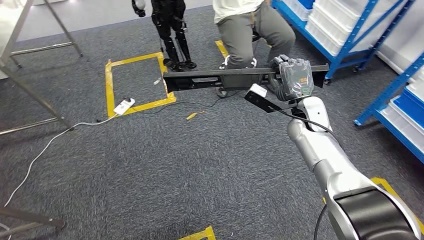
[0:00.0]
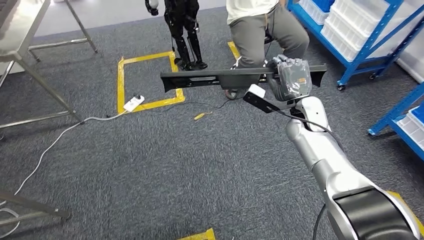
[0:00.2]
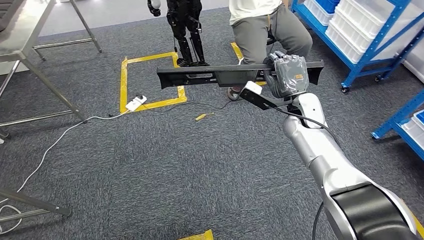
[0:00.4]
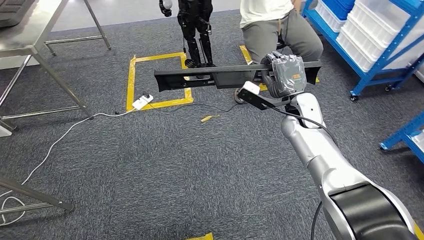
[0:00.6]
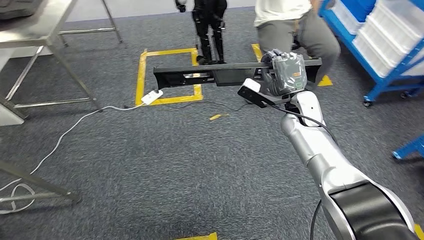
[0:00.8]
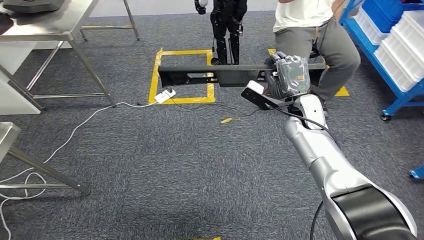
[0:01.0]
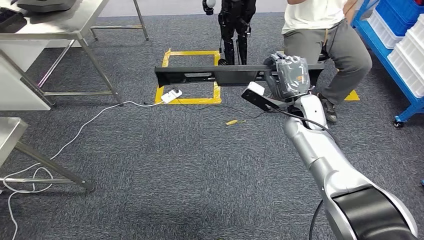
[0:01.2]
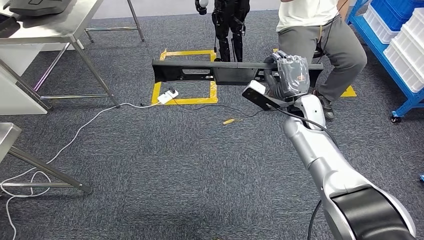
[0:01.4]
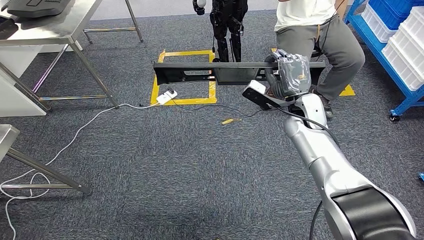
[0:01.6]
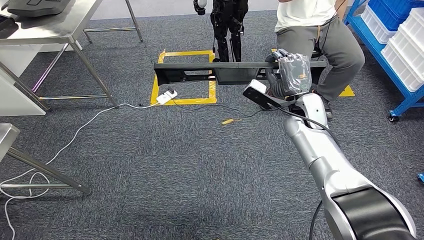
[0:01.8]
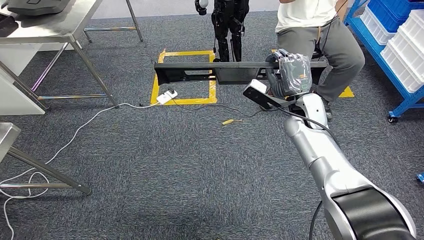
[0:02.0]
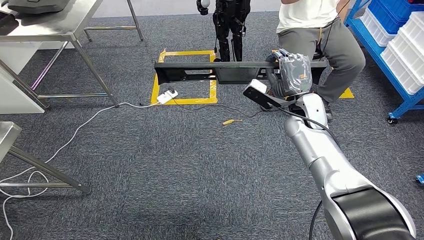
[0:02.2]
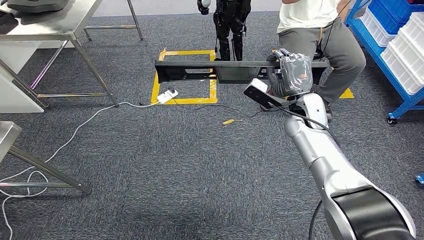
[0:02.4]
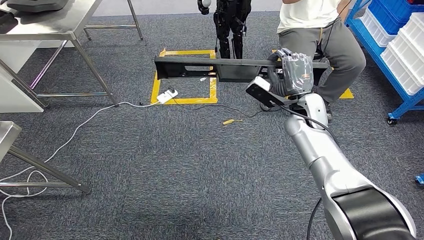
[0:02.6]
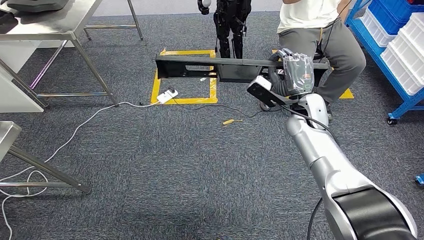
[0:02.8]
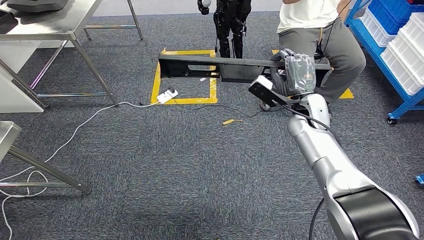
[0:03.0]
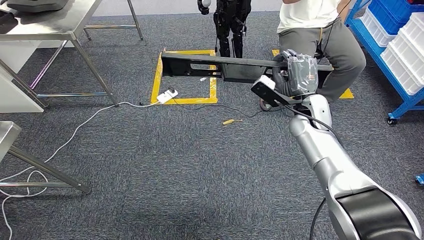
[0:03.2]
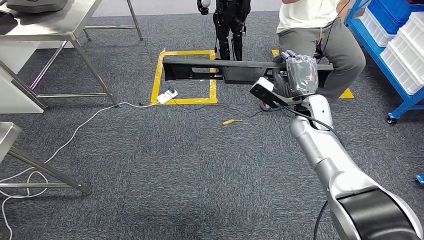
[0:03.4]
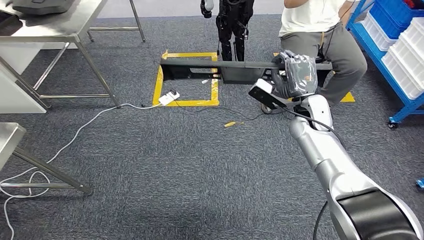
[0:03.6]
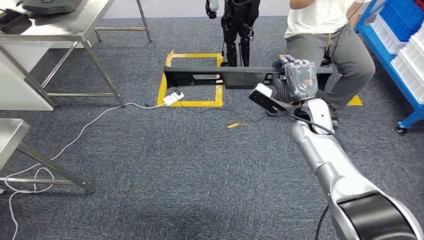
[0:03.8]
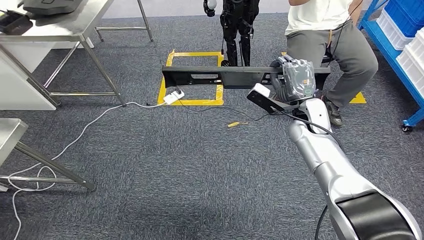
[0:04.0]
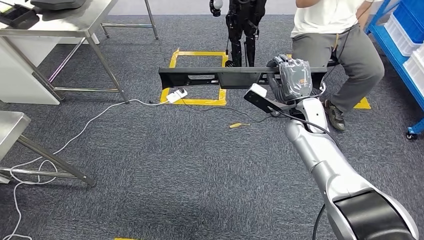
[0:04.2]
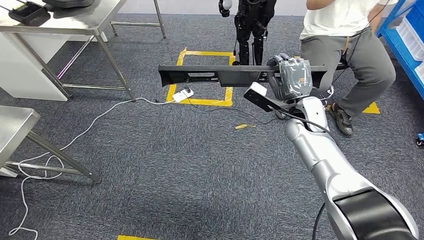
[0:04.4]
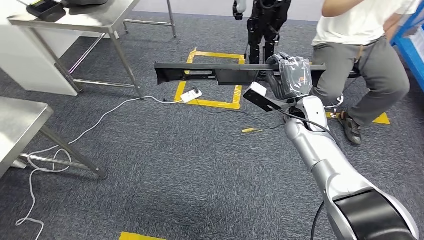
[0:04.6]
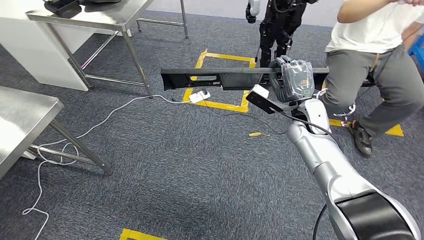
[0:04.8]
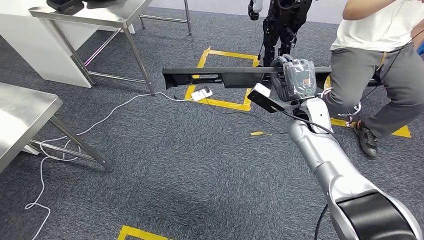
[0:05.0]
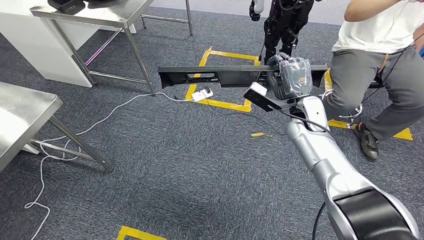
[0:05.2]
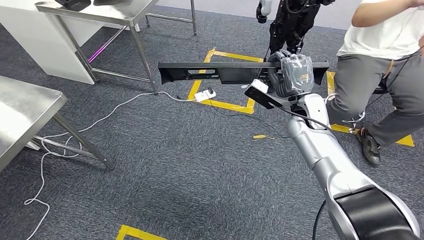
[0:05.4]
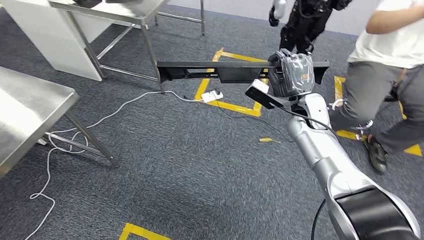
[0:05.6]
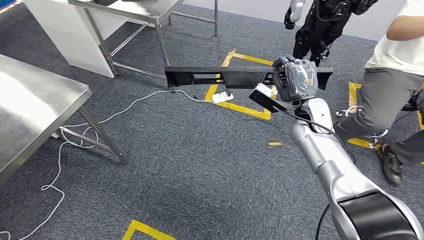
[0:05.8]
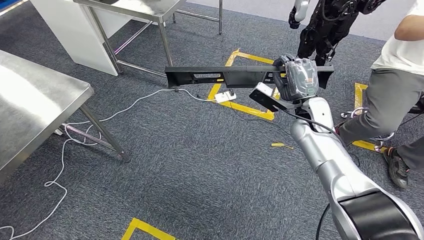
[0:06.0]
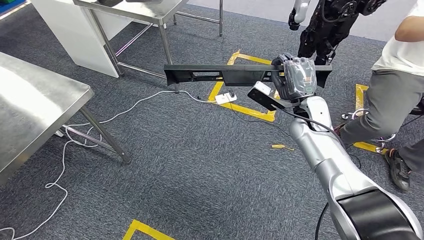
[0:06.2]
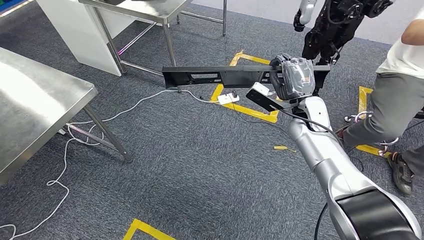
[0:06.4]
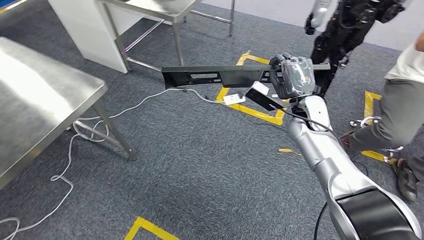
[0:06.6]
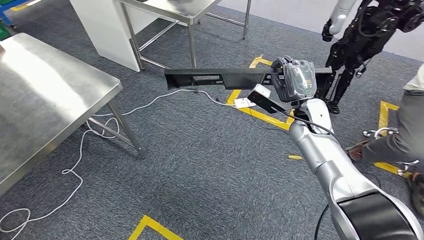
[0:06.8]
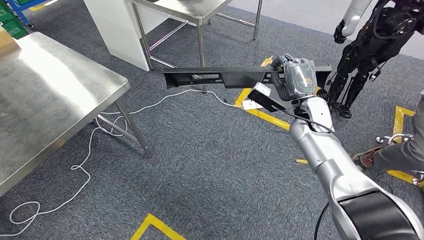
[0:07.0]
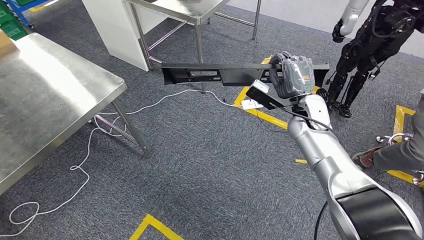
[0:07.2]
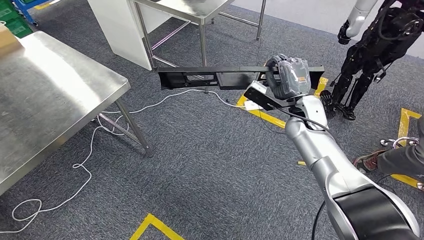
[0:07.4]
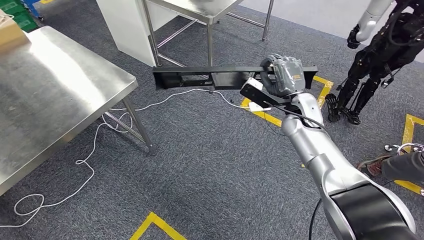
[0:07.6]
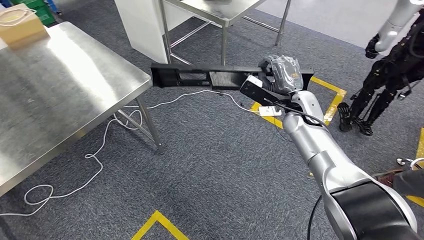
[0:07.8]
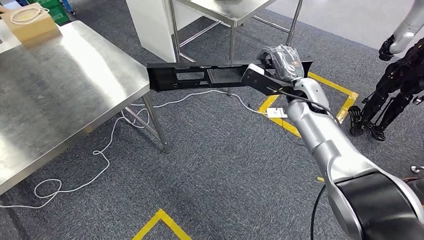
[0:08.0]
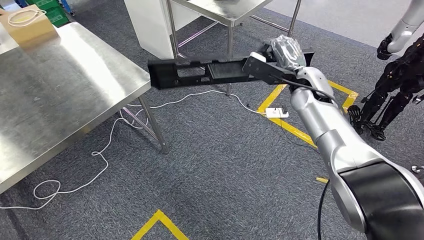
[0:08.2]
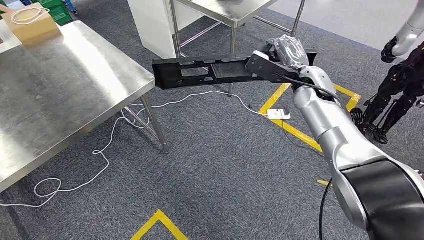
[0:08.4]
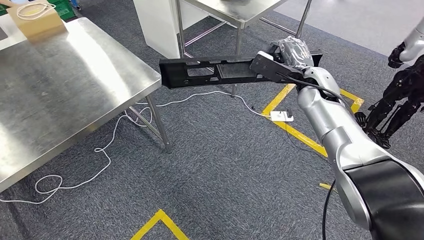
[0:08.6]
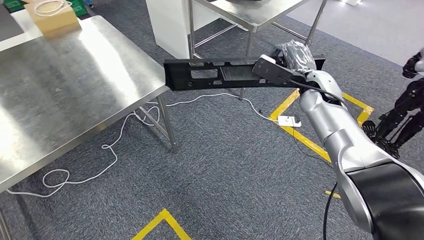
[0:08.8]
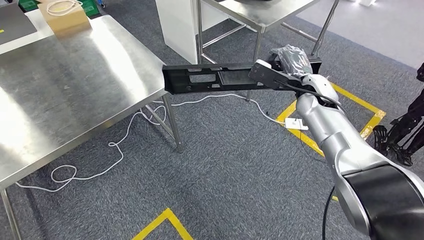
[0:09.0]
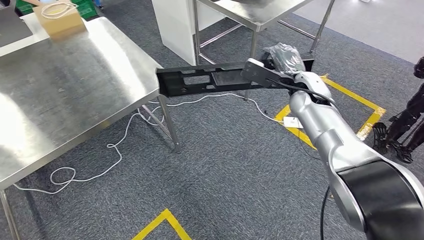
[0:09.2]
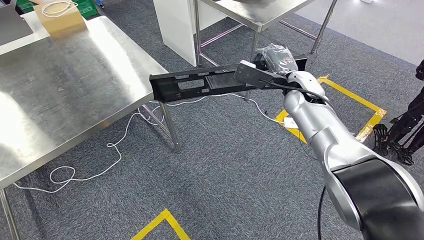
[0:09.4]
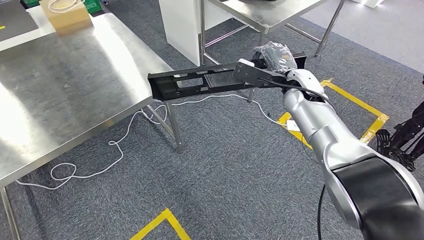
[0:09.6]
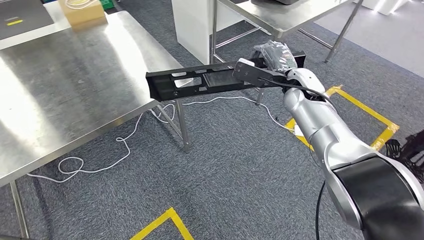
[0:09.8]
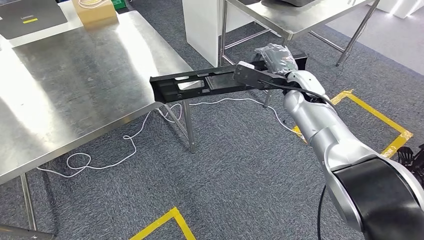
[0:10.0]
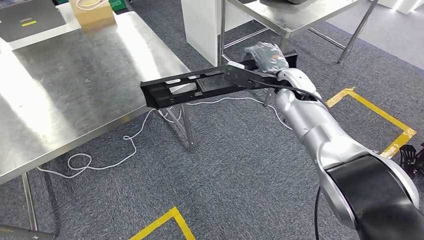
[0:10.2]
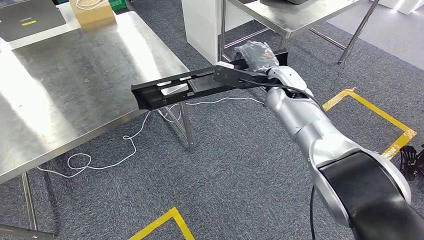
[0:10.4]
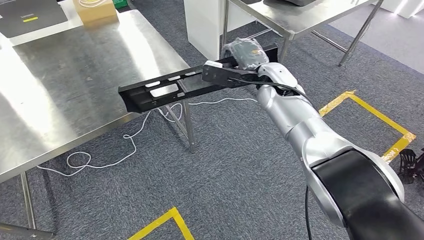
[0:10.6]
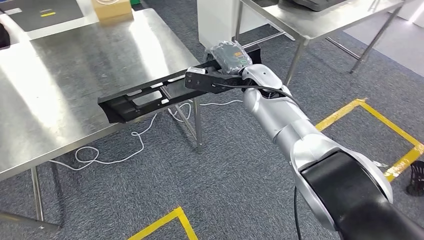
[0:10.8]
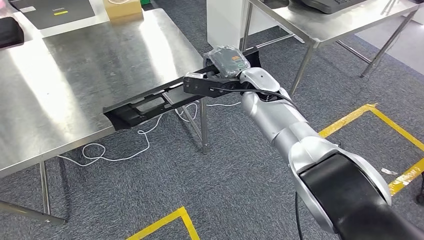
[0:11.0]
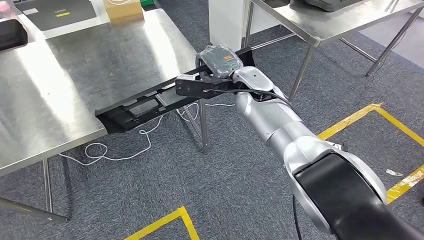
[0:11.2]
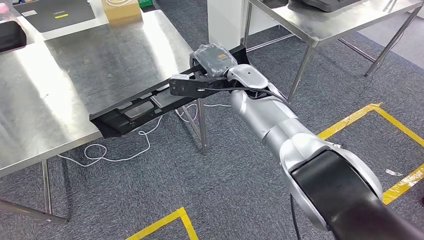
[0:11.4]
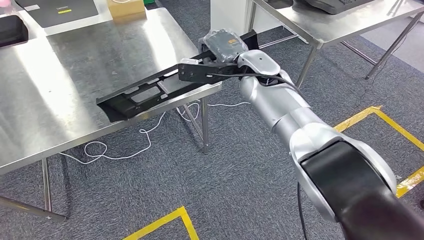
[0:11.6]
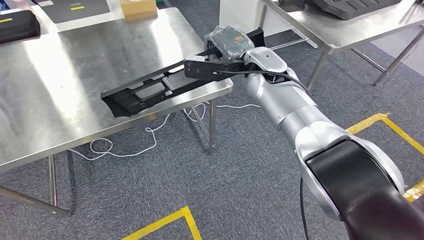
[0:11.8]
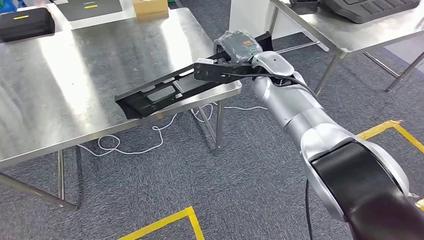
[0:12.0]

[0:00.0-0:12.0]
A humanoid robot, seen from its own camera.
Step, 0:00.0 to 0:10.6: Move the large material to the workbench.
0:01.6 to 0:03.0: The hands move only a little.

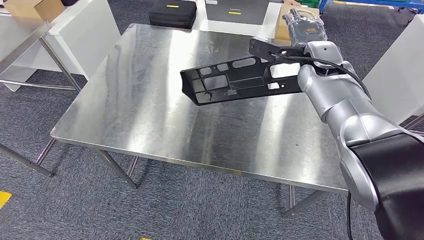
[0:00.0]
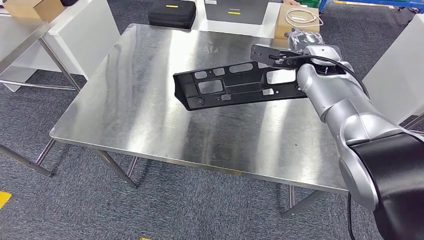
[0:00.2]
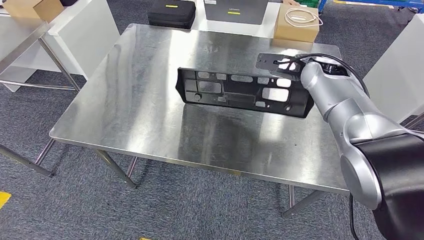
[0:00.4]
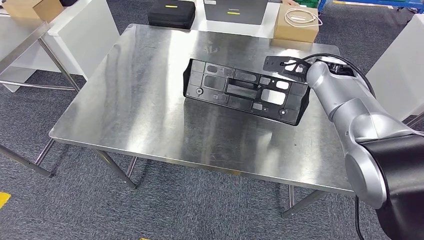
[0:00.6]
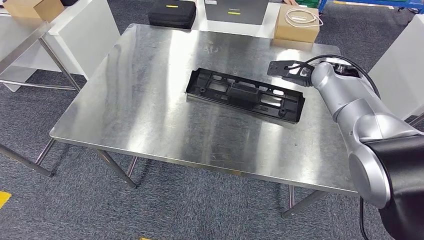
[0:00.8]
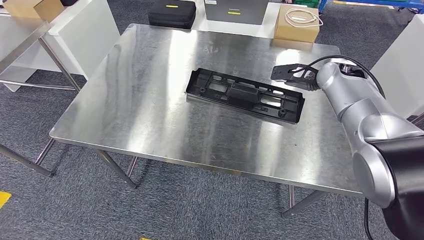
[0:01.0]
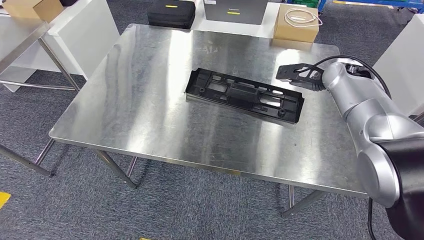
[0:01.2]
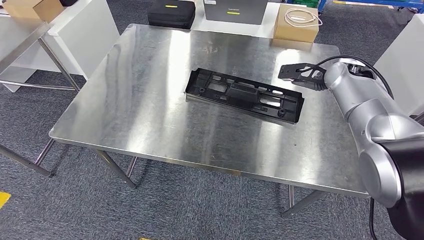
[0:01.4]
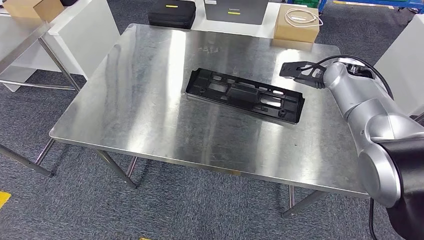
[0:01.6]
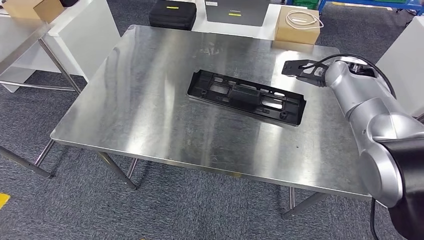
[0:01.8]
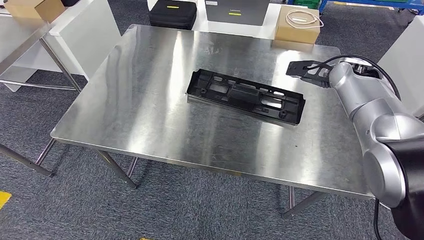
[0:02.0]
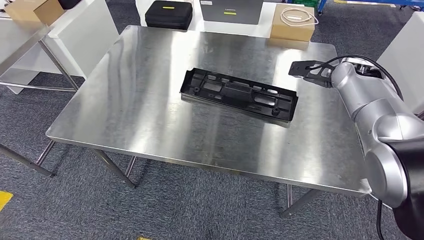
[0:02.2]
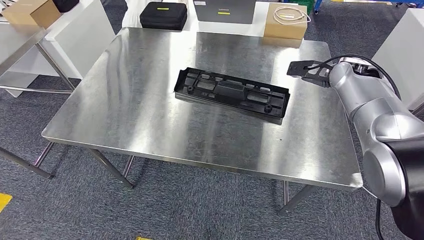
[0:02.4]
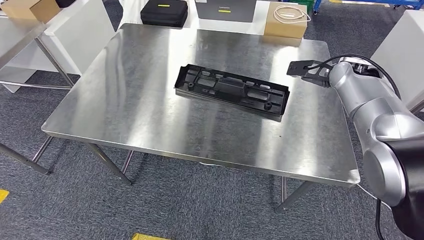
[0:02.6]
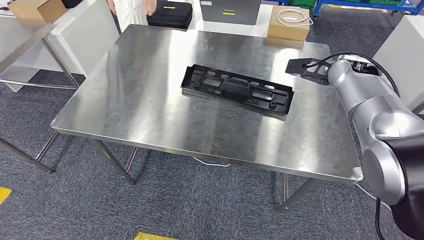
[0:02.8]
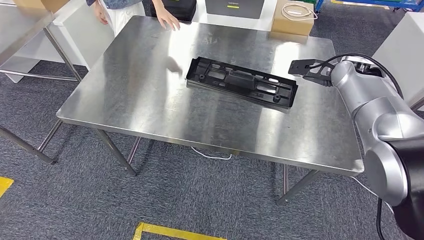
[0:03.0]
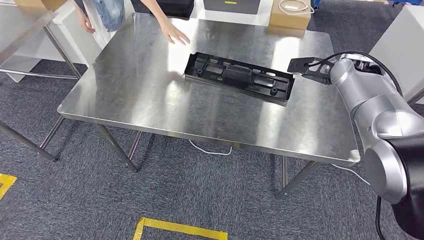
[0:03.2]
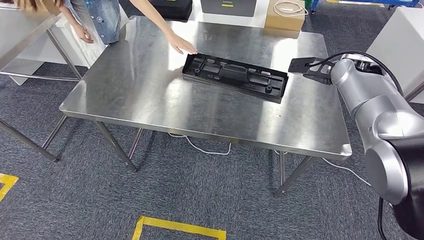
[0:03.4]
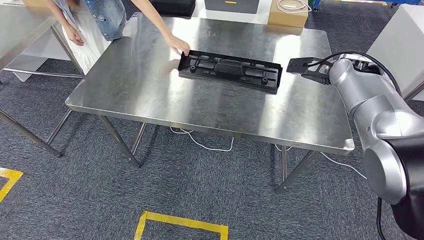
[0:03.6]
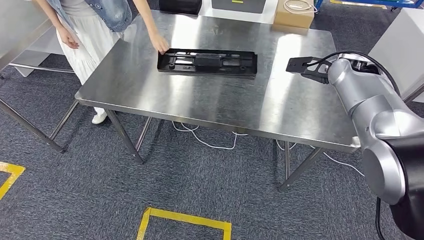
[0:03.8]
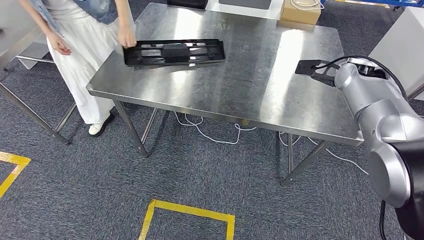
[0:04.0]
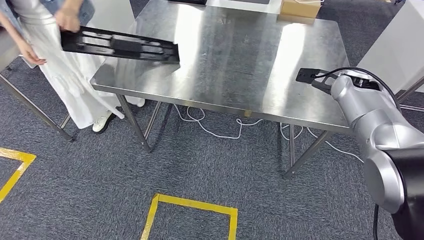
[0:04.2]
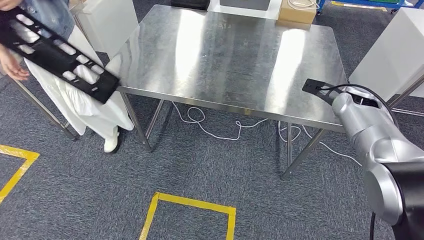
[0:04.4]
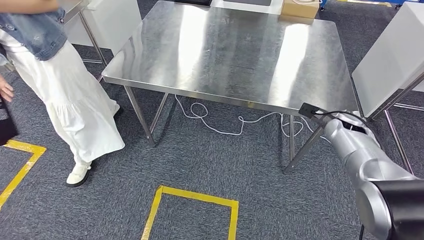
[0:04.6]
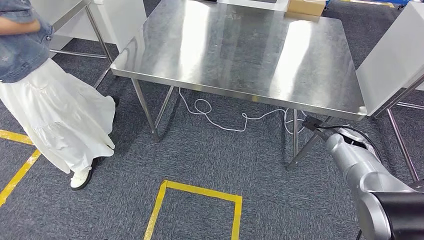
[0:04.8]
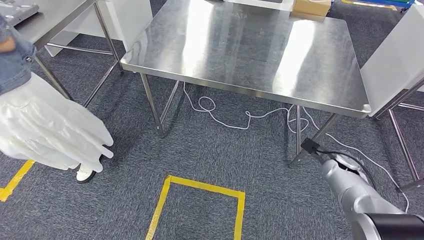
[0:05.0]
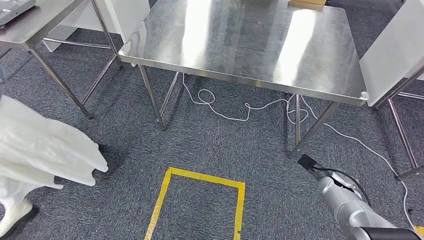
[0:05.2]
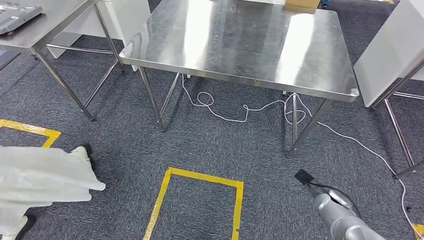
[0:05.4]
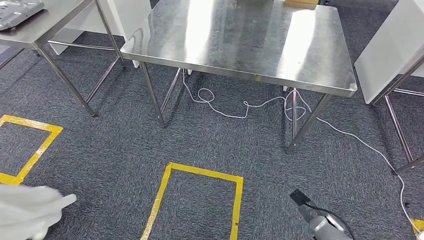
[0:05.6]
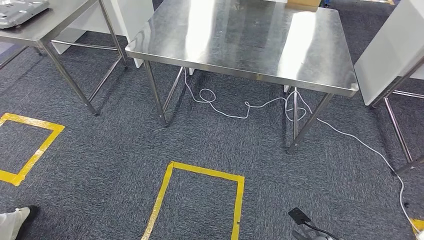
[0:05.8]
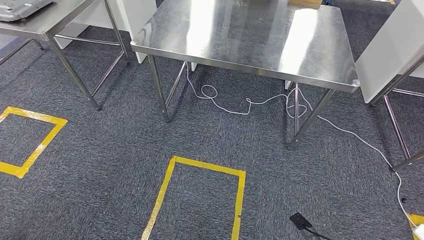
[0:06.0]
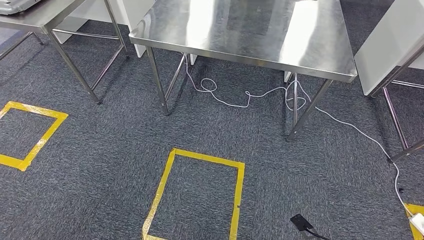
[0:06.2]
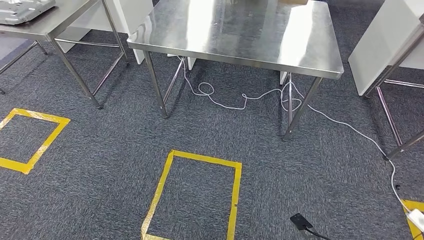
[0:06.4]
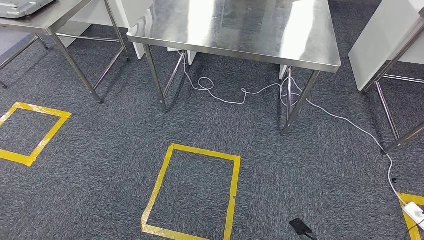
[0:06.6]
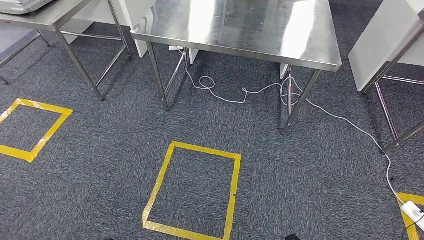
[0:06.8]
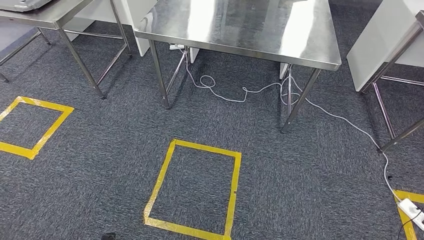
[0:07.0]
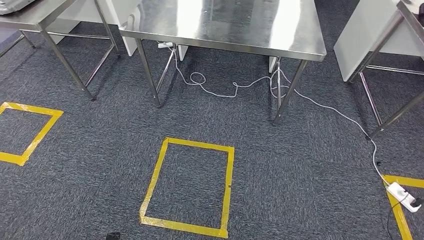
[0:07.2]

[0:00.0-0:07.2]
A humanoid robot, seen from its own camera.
0:00.0 to 0:01.4: The right hand moves to the right, approximately 5 cm.
